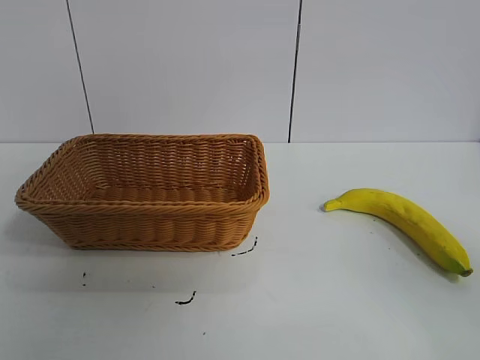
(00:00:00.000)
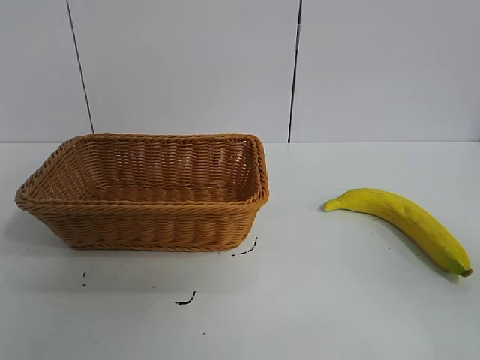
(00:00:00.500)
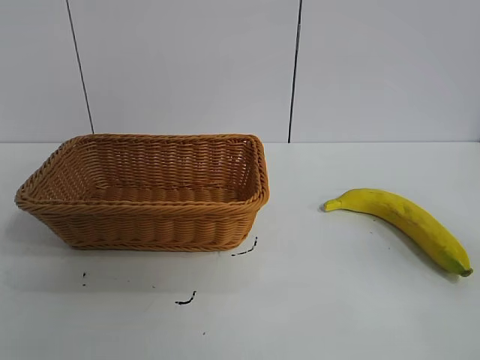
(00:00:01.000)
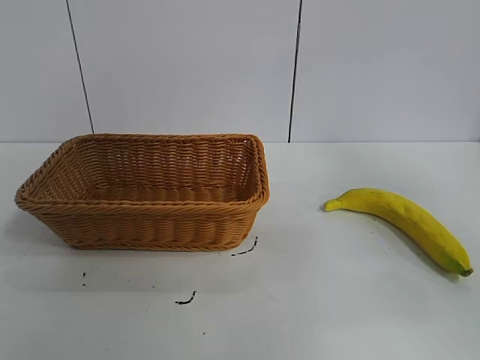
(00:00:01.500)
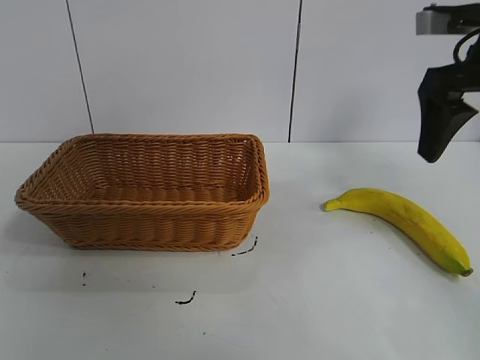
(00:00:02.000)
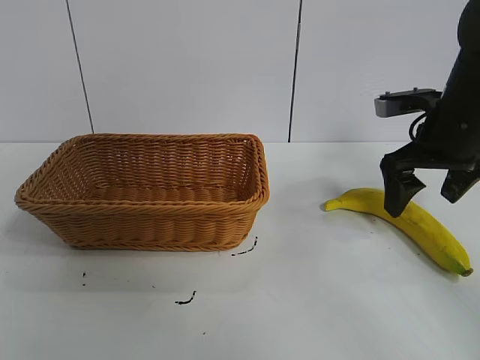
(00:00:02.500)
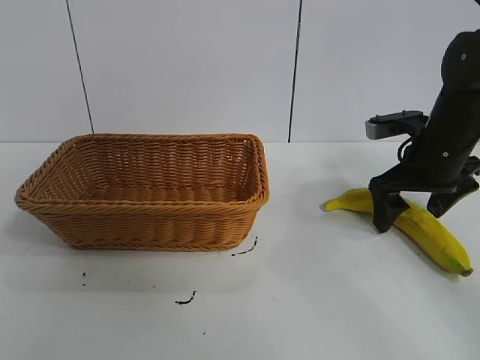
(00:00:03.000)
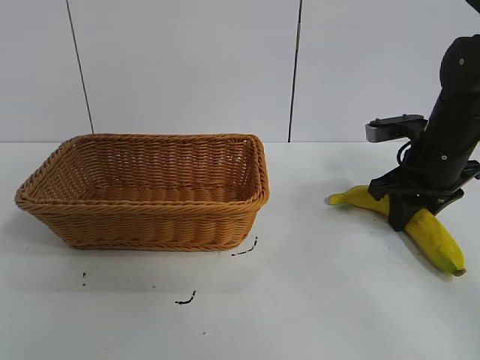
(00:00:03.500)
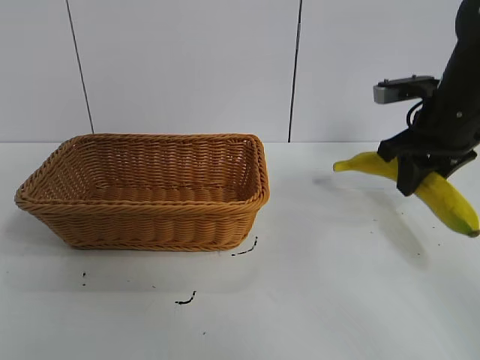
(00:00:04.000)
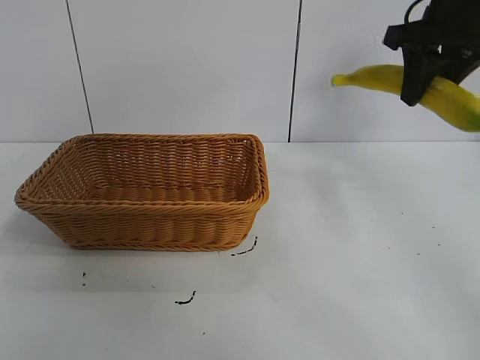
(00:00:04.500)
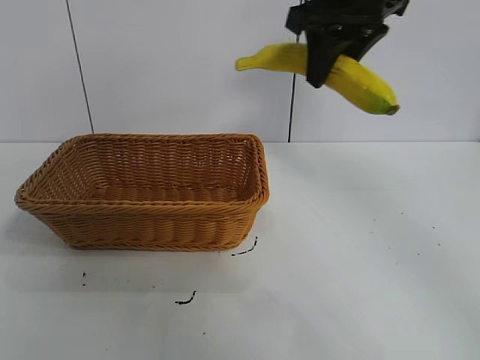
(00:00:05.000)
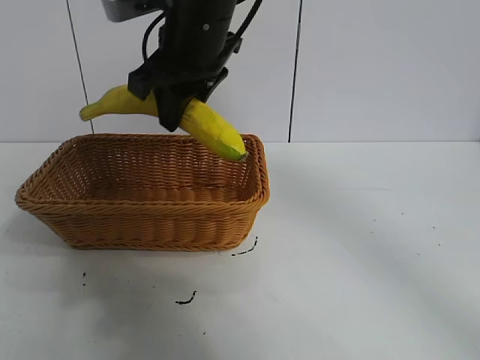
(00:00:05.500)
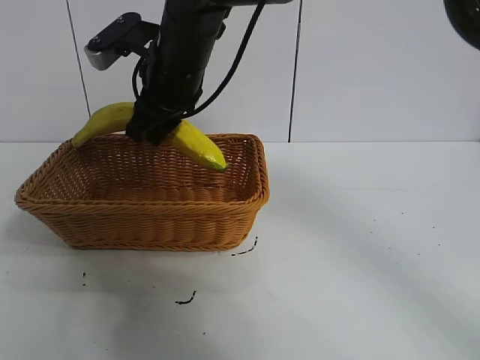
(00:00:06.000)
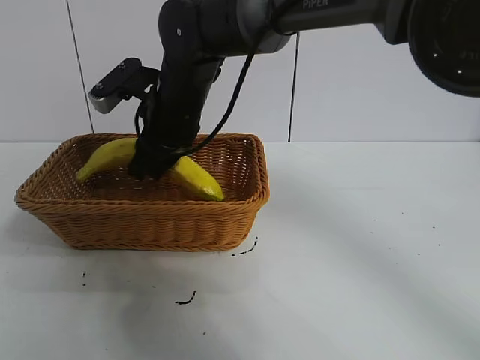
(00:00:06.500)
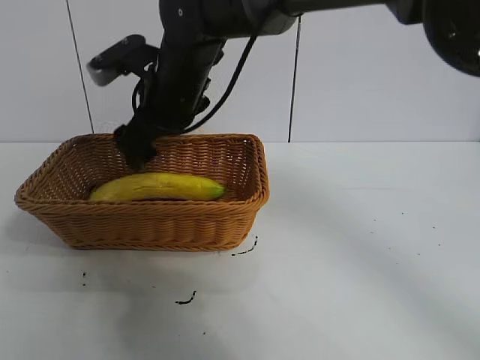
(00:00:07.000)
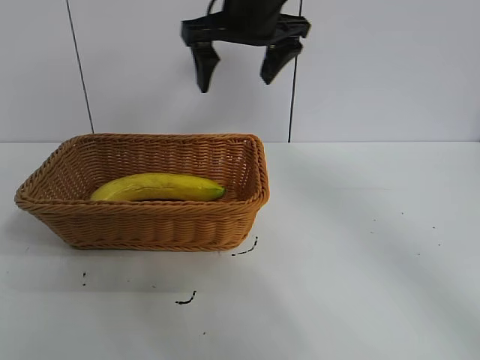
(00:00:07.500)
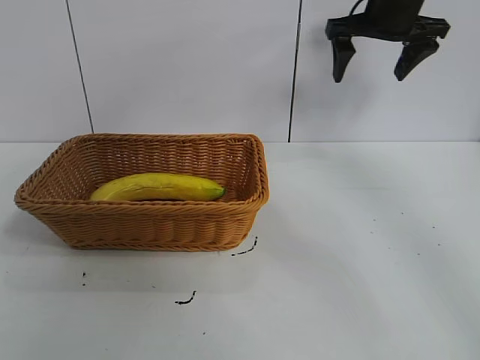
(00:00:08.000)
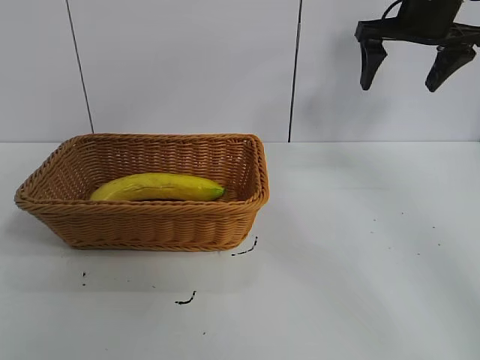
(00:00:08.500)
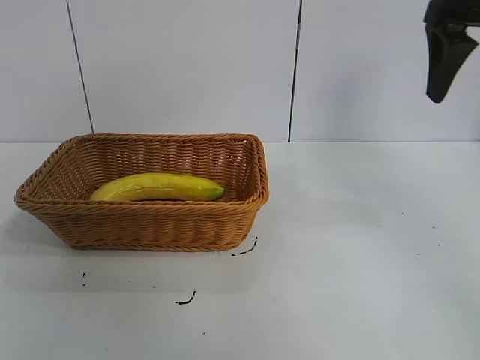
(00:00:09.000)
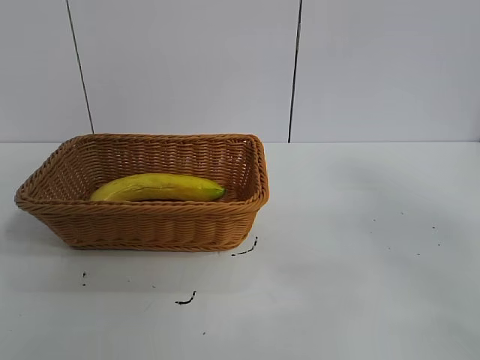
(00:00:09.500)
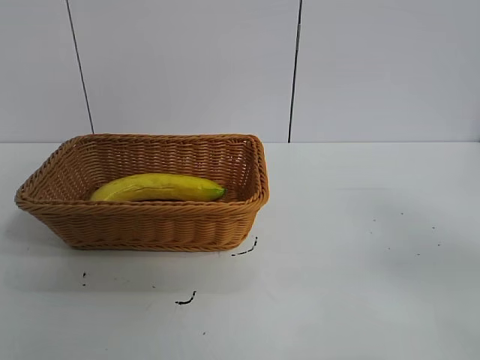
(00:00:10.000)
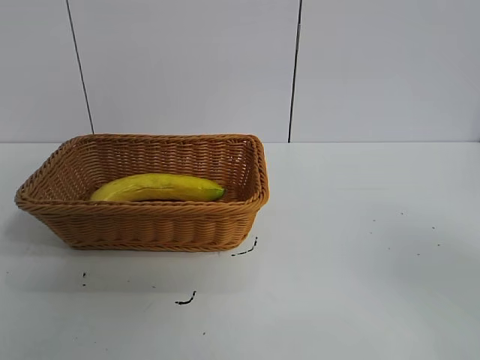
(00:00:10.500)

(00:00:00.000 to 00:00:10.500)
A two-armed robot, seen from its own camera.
Task of the whole recording: pick up the banana and put it into the basket.
Step, 00:00:01.000 - 00:00:03.500: Grasp the banana with right gripper.
Step, 00:00:04.000 - 00:00:06.500: Place the banana in the basket with right gripper.
